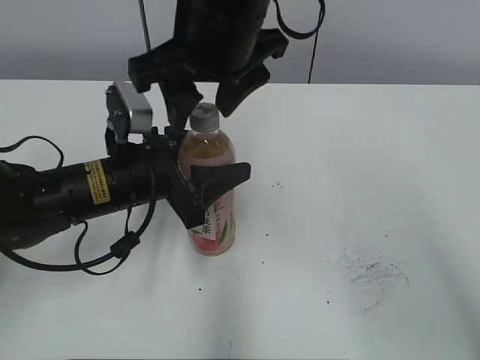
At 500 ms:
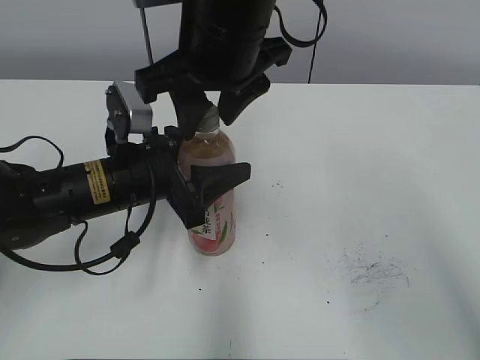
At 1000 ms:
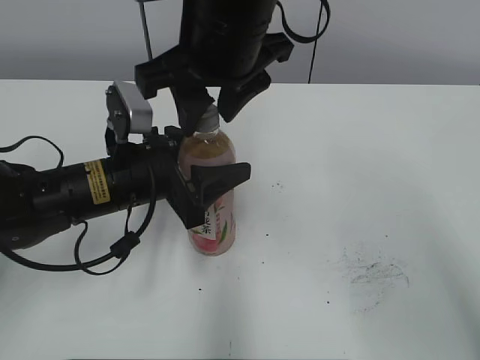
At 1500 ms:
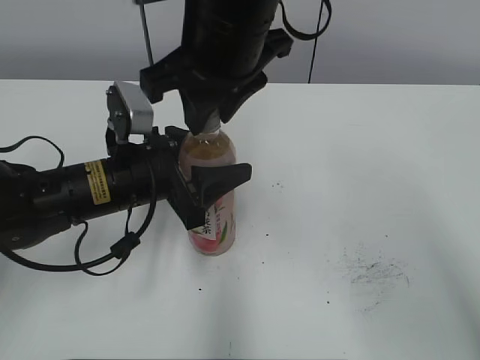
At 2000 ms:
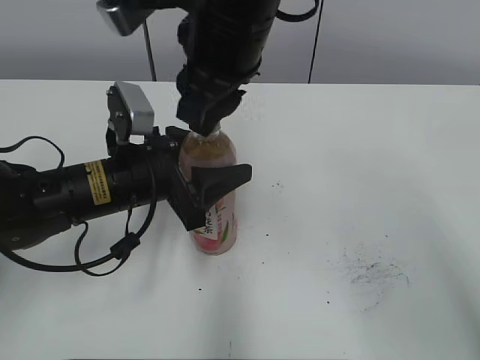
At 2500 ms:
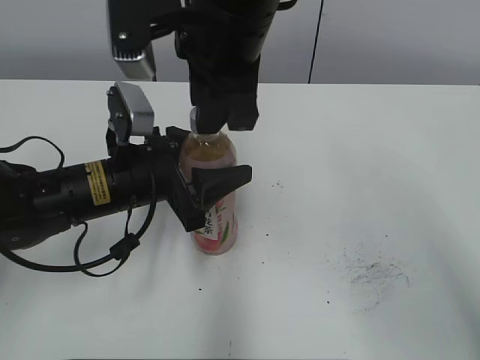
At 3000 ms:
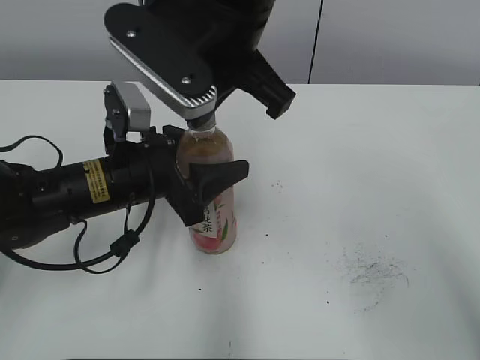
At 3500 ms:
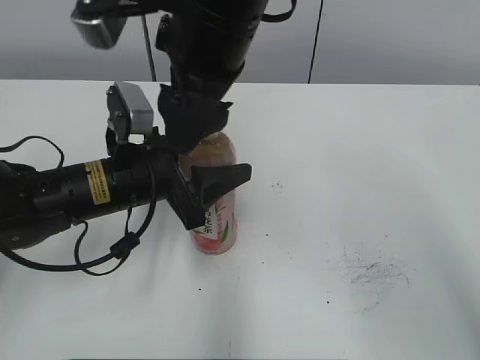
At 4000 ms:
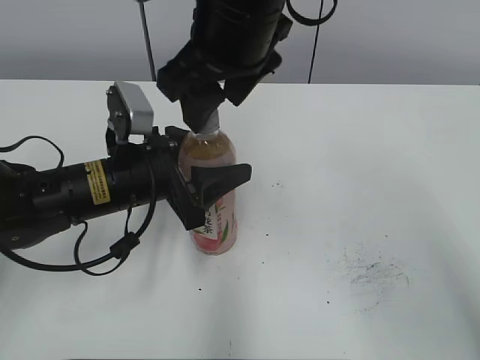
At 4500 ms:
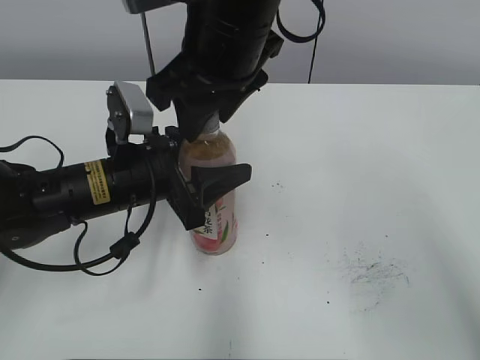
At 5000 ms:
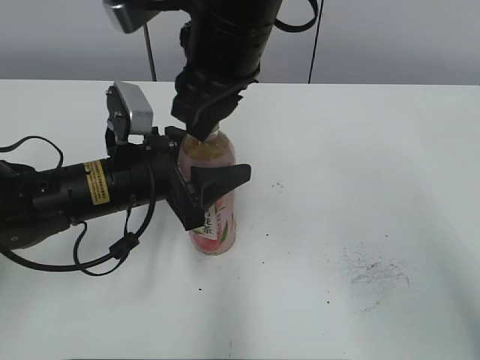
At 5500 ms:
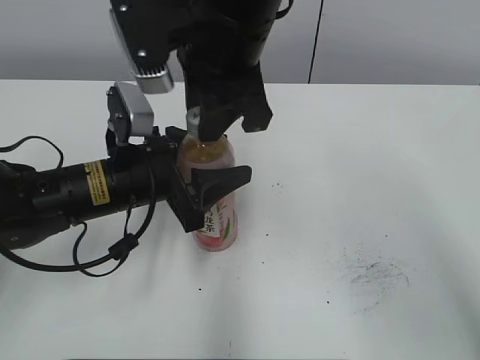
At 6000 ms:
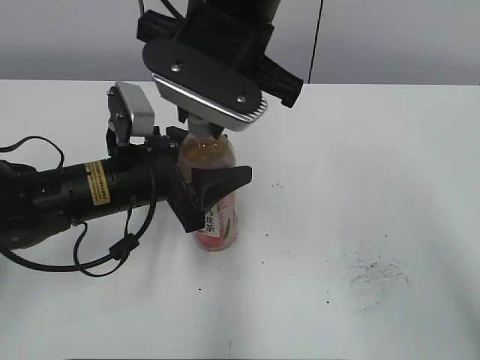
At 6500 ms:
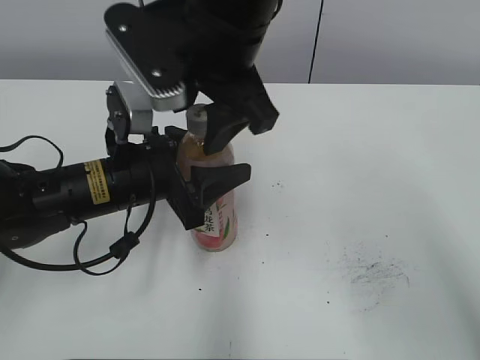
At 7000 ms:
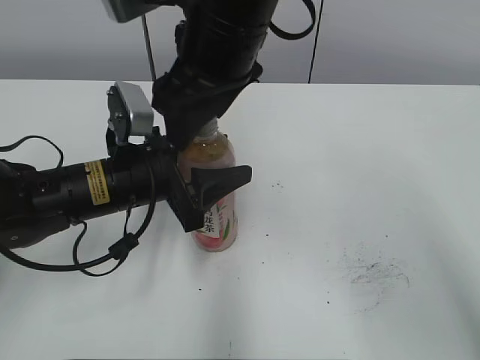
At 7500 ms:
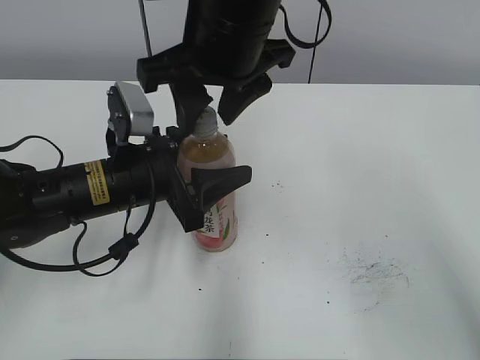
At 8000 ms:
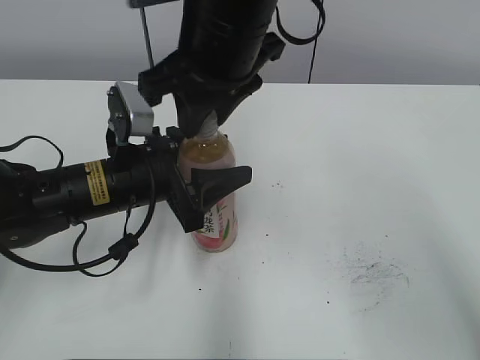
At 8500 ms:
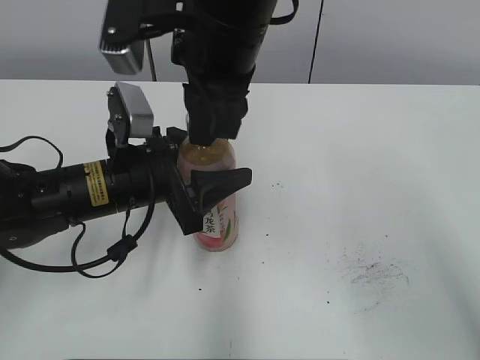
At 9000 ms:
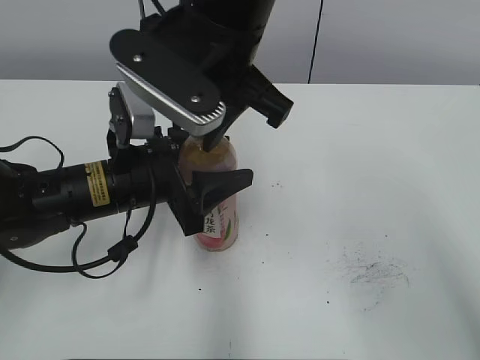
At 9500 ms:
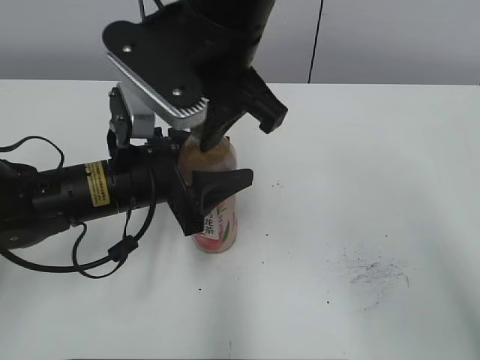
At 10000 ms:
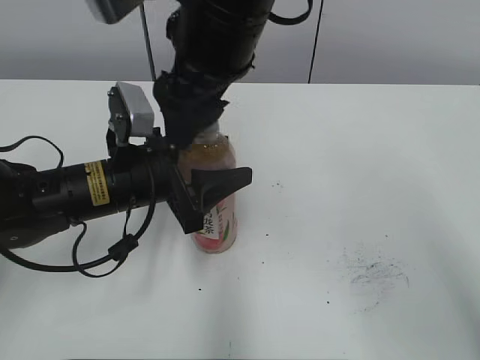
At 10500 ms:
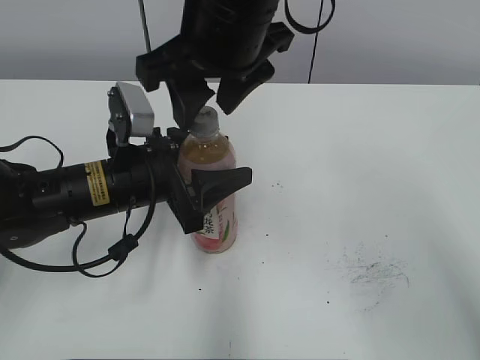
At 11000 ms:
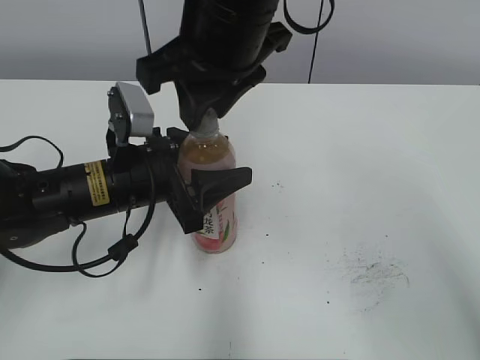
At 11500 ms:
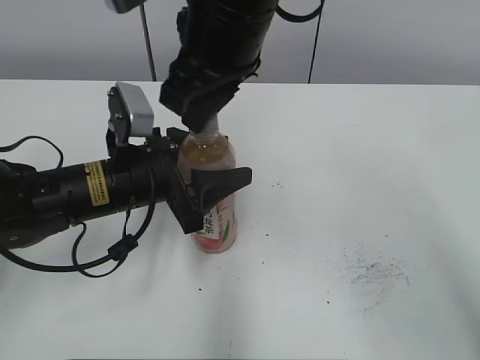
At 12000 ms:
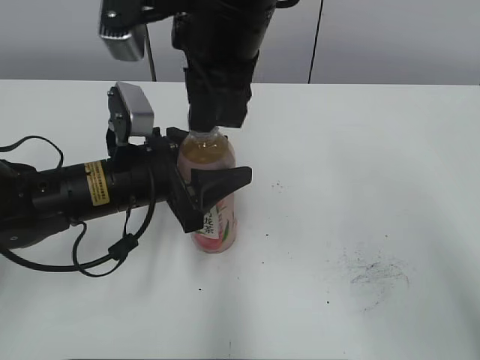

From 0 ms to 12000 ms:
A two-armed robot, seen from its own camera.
From 0 ms to 2000 ms: The right gripper closes up.
From 2000 ms to 4000 ms: The right gripper opens up.
From 4000 ms to 6000 ms: The right gripper closes its fingers.
From 6000 ms to 8000 ms: The right gripper opens, then closes again.
From 8000 ms to 10000 ms: The right gripper opens.
From 10000 ms to 12000 ms: The right gripper closes.

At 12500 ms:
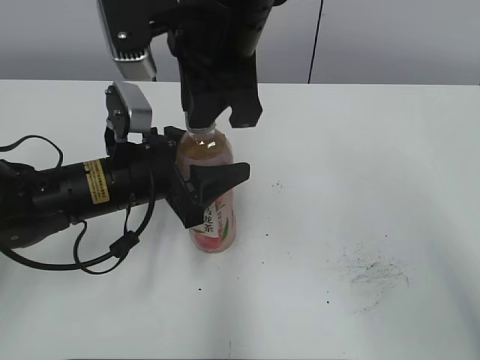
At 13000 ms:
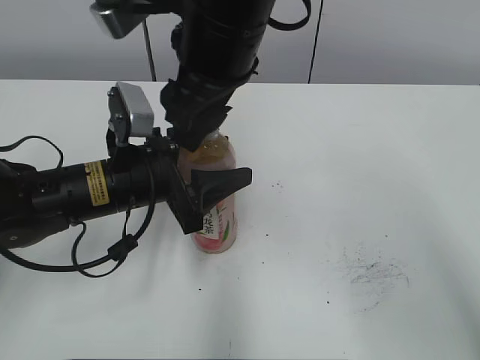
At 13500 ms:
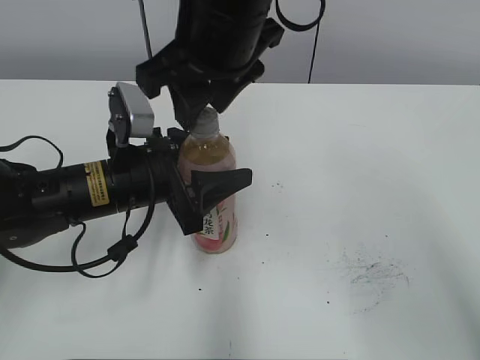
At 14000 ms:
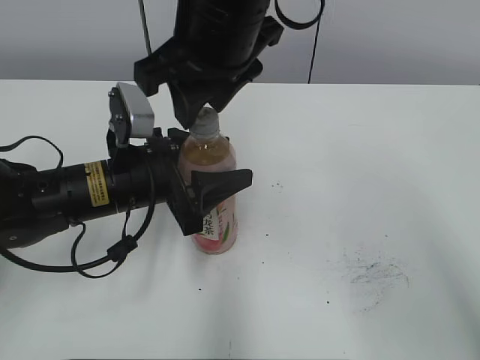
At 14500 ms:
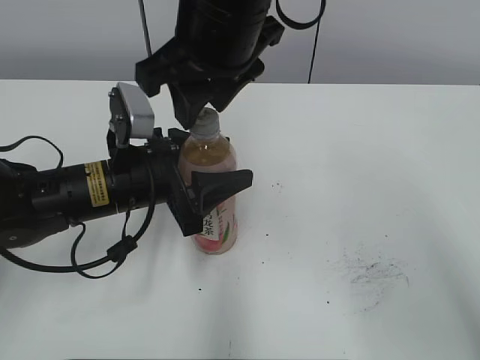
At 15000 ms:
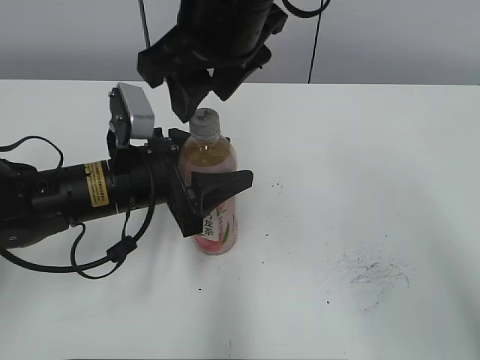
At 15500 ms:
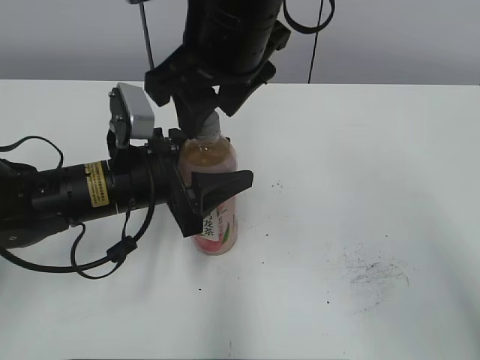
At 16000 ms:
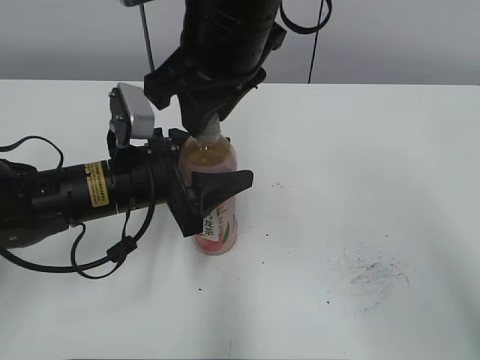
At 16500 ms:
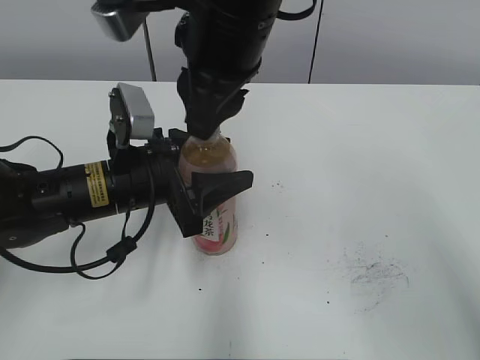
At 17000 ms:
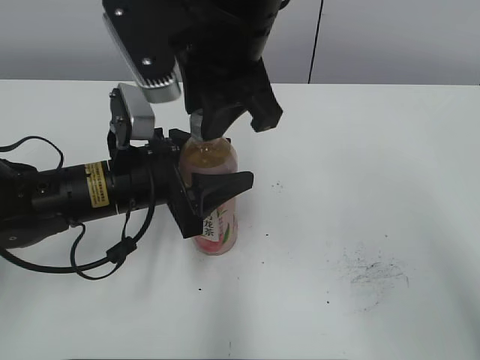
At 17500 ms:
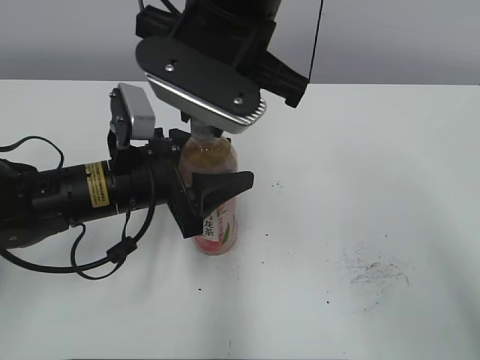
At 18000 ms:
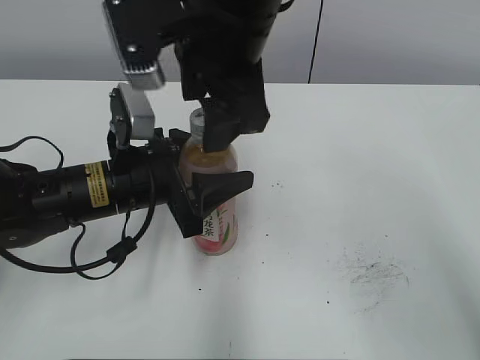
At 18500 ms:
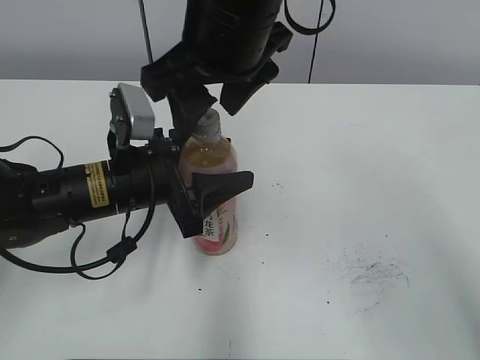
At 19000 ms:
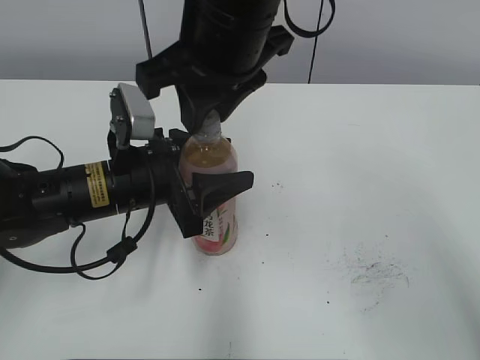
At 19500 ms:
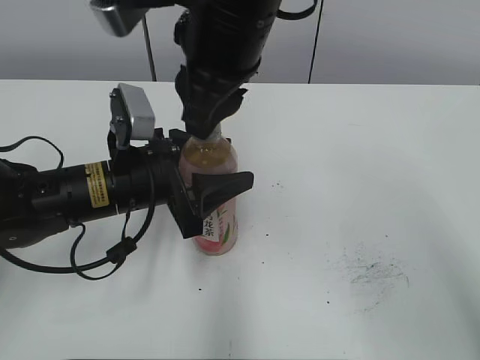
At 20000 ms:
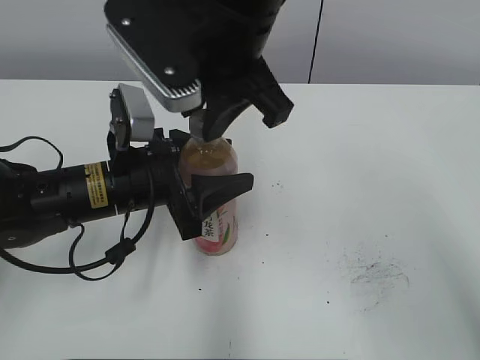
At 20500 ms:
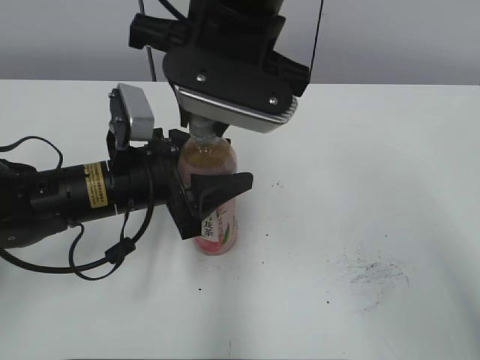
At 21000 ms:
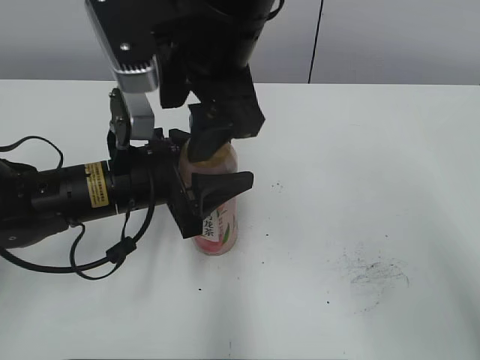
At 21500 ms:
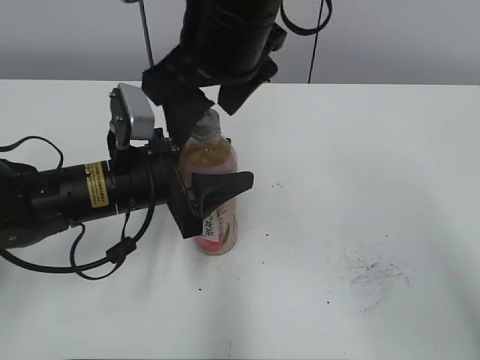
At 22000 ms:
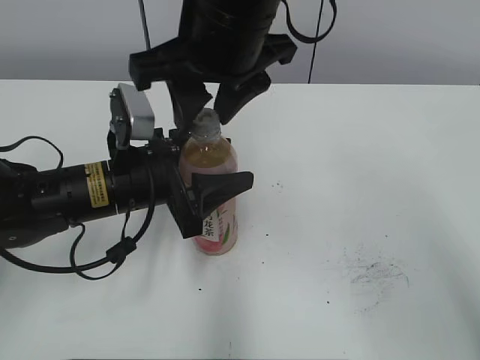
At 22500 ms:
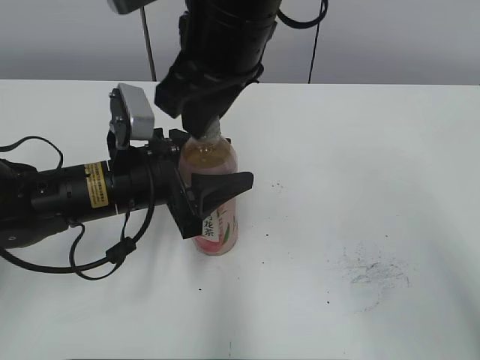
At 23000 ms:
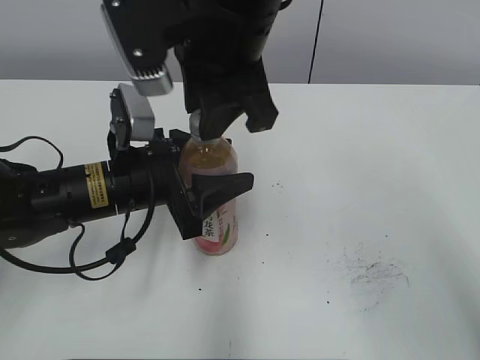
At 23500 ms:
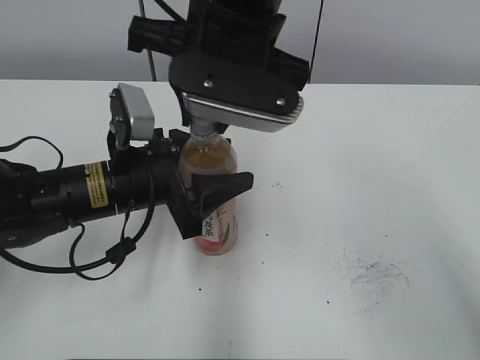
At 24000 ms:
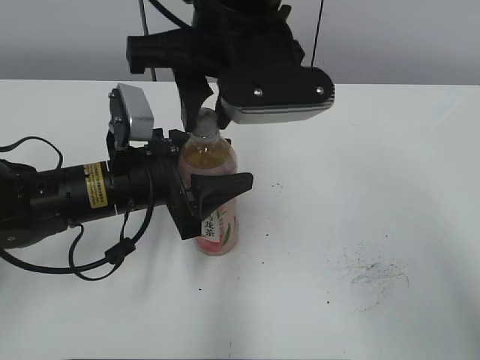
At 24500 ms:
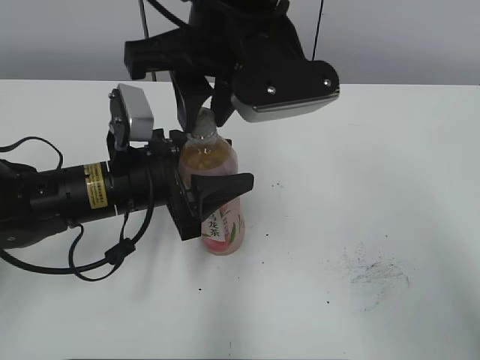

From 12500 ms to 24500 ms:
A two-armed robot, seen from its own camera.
From 12500 ms to 14500 ms: The right gripper opens.
From 16500 ms to 18500 ms: The right gripper opens its fingers.
From 18500 ms to 20500 ms: The right gripper closes up.
From 20500 ms to 22500 ms: The right gripper opens, then closes again.

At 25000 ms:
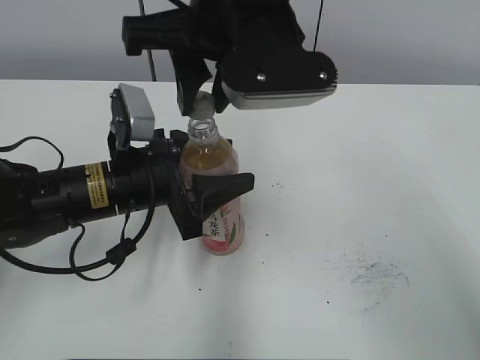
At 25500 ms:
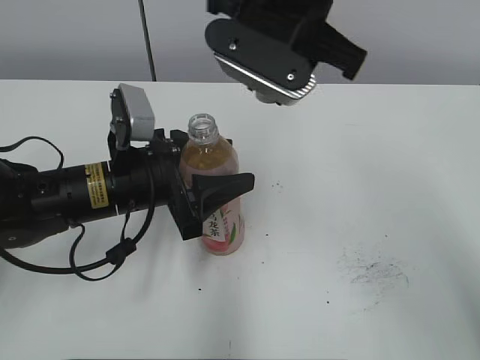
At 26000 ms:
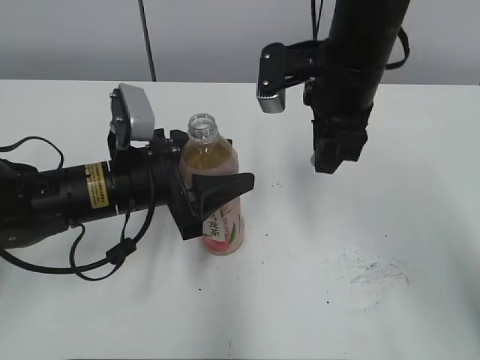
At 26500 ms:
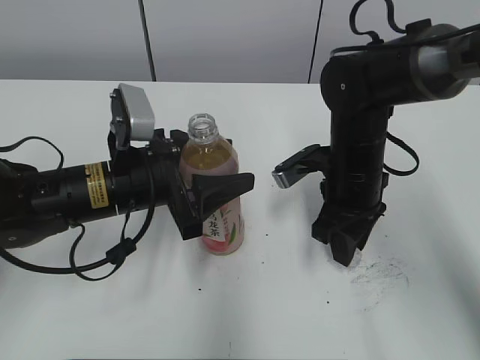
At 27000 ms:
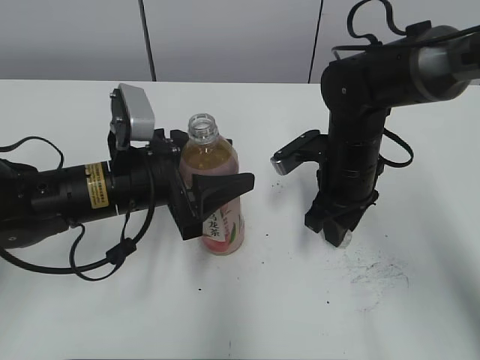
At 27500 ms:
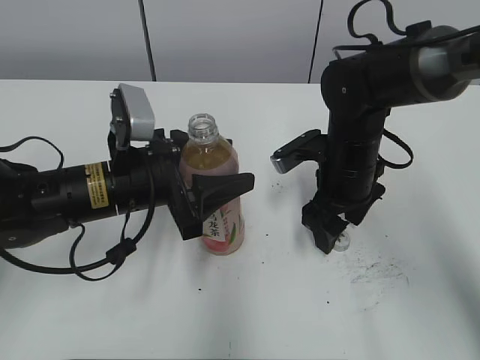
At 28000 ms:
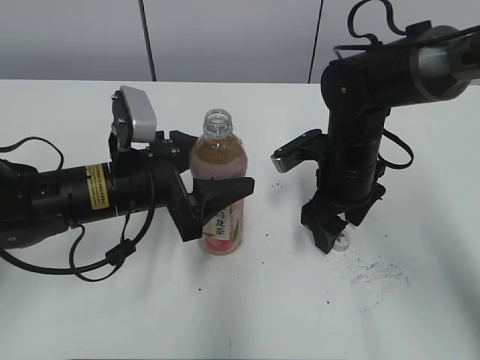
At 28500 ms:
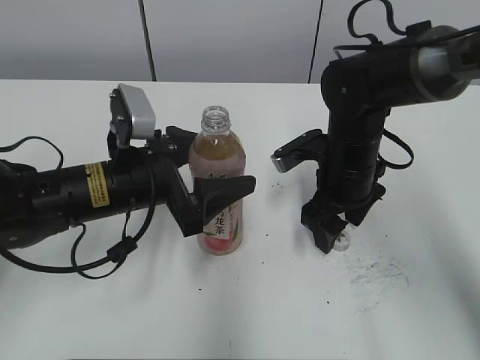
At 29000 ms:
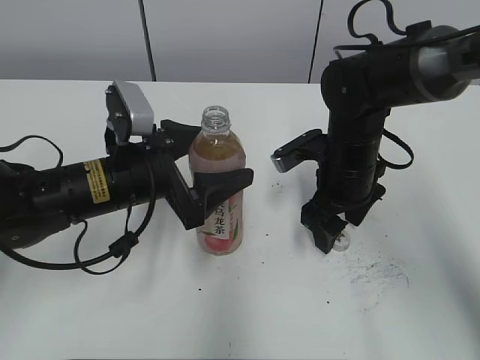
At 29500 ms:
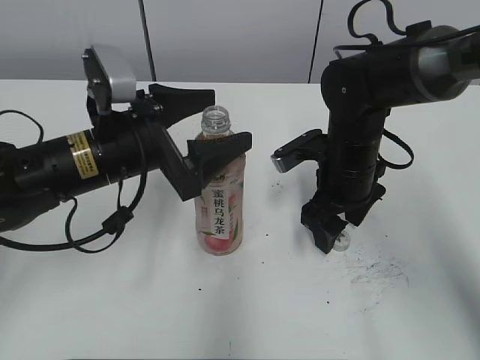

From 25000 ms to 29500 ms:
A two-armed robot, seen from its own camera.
Step, from 25500 ms to 27000 ms: Place the bottle cap on the right.
Step, from 27500 ms to 29000 ms: Place the Peach Oolong Tea with the left hand.
From 25000 ms to 27000 ms: The right gripper goes about 25 cm downward and to the right.
From 27000 ms to 29500 ms: The left gripper opens up; the right gripper opens up.
